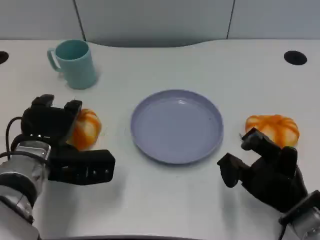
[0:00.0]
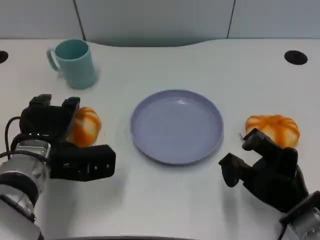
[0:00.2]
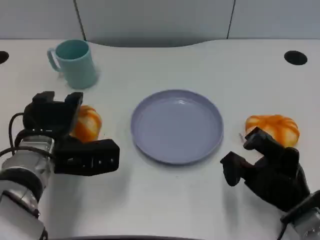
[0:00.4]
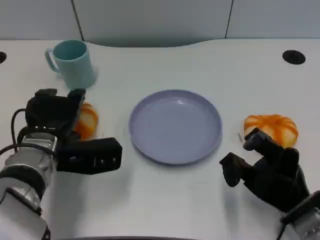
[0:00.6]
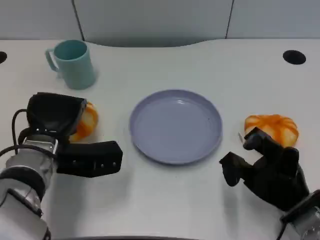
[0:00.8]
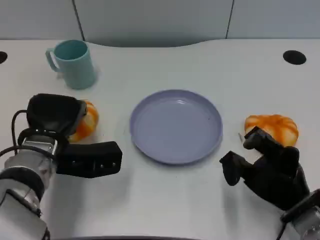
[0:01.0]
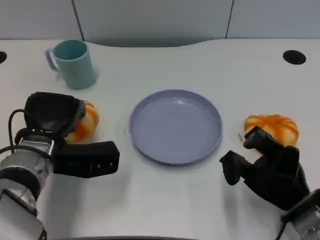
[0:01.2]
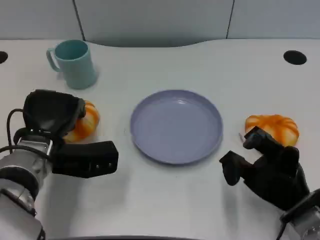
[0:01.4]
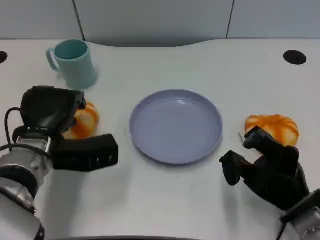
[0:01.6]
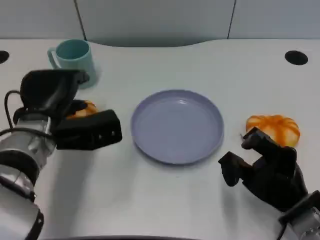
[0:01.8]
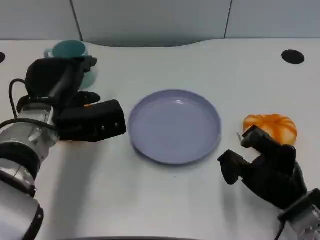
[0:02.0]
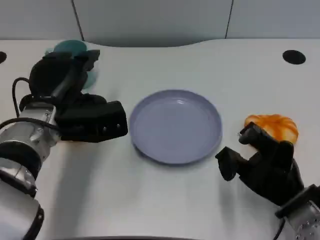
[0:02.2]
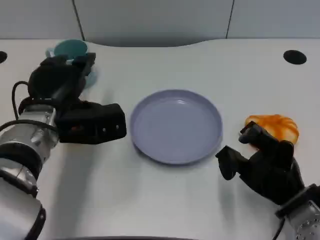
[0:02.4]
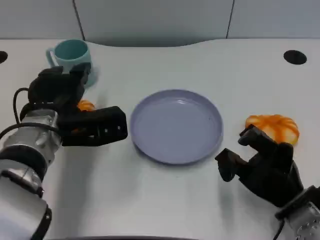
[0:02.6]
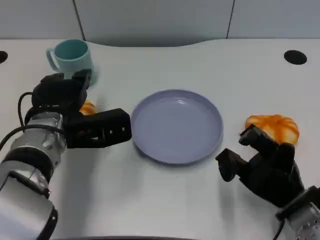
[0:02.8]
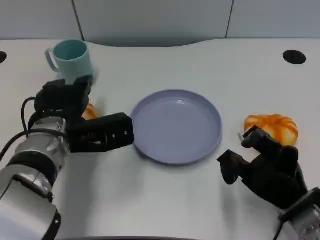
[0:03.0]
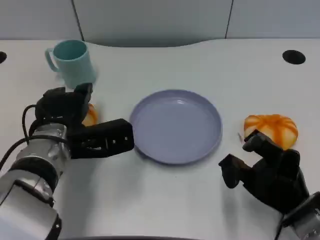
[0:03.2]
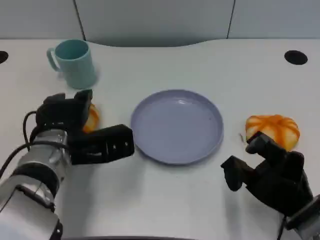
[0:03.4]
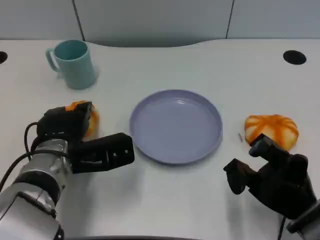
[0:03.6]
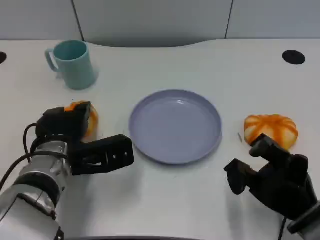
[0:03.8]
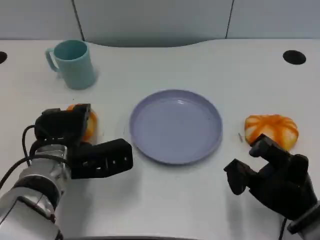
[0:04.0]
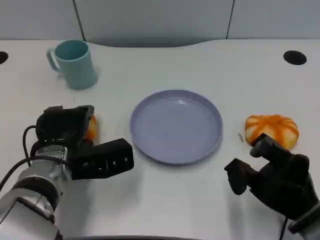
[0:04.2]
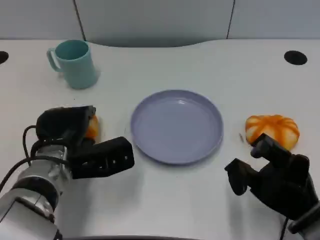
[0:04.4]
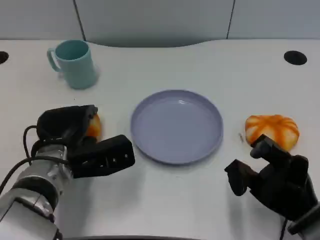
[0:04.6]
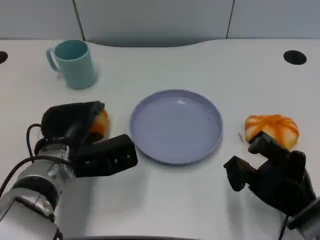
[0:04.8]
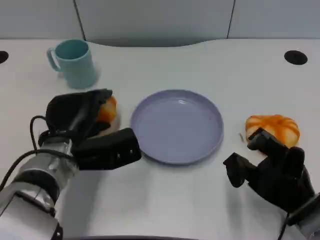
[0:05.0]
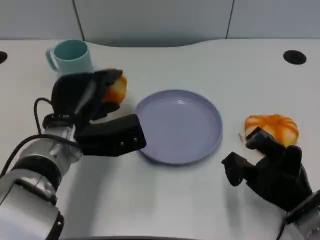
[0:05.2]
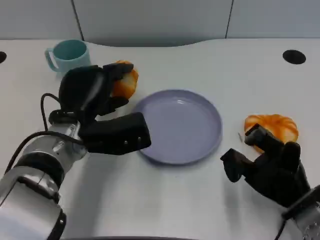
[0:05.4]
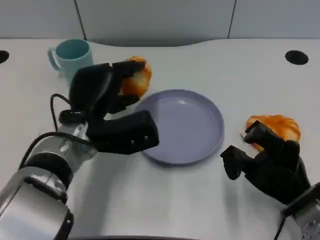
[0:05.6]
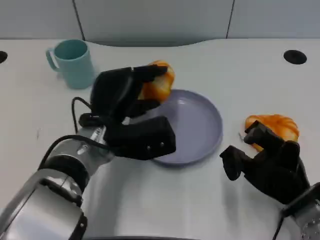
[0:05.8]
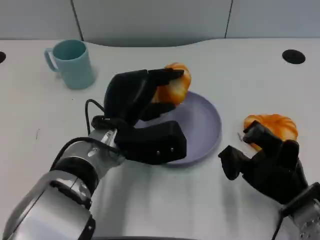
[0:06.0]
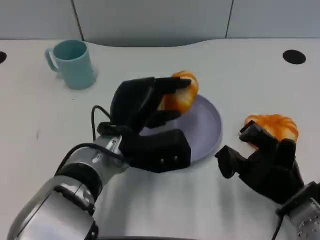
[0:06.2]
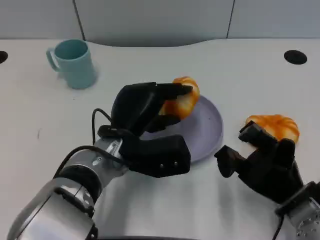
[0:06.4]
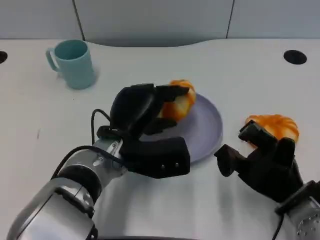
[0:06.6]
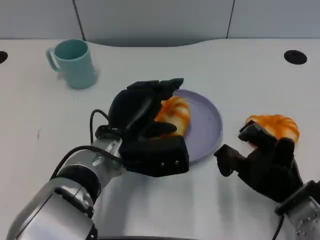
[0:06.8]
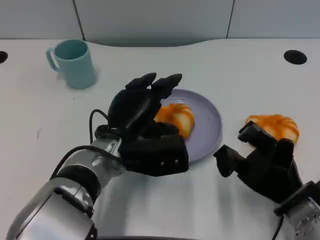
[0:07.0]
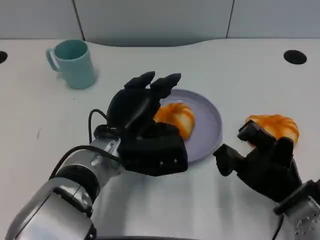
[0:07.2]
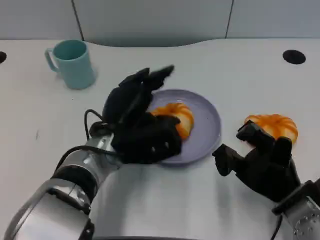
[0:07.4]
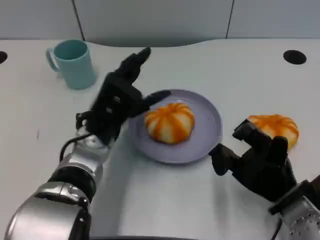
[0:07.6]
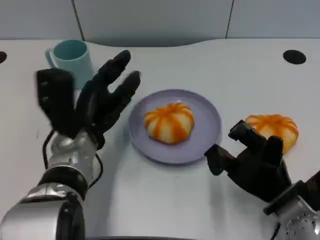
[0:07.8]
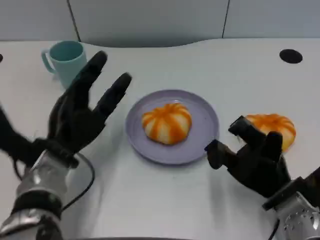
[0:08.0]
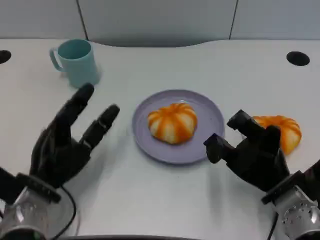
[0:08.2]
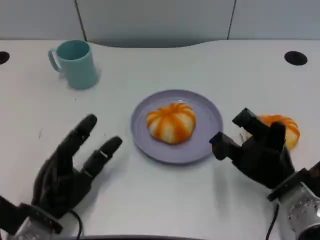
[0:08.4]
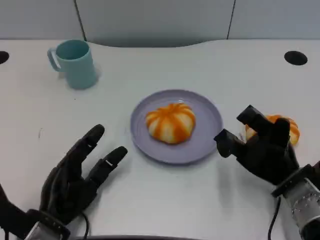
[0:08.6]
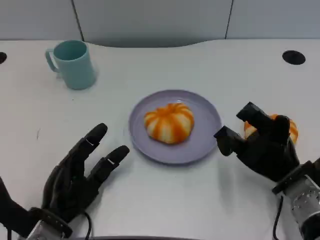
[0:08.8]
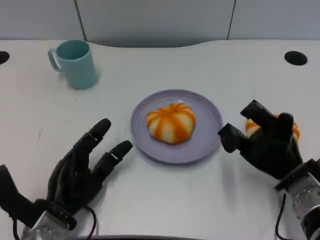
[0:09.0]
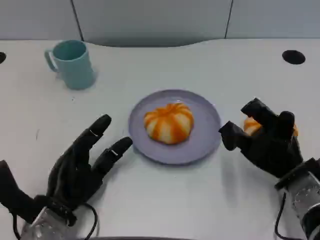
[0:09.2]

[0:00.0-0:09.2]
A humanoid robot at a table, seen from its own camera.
Task of the whole recording: Grasp the bread from the table and place it into the plate.
0:00.0 to 0:01.6: There are only small adjustments of the hands.
0:01.6 to 0:03.0: There are only small adjustments of the hands.
0:04.6 to 0:06.2: The left hand shifts about 10 cm to the right.
0:07.6 to 0:09.2: The left hand heads downward, backward and to the left, covering approximately 15 cm.

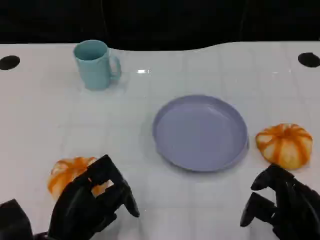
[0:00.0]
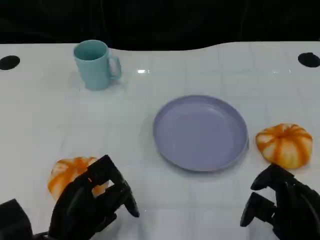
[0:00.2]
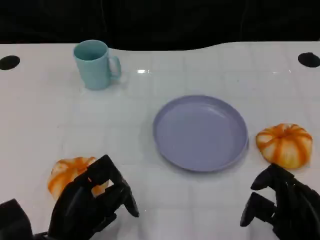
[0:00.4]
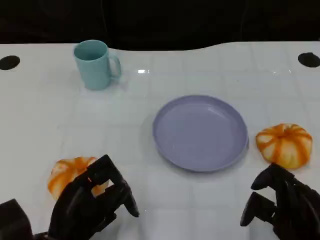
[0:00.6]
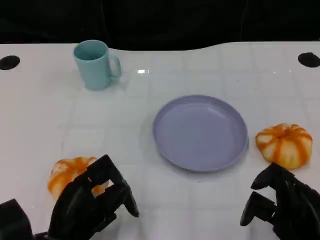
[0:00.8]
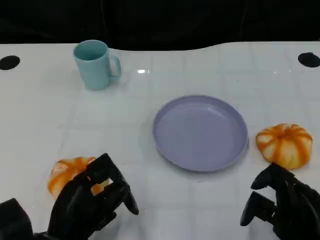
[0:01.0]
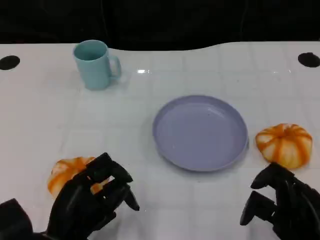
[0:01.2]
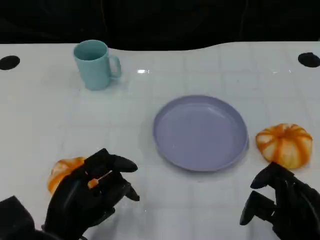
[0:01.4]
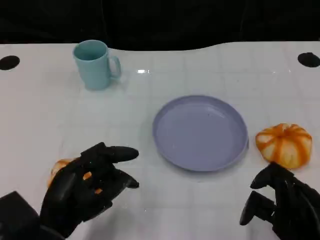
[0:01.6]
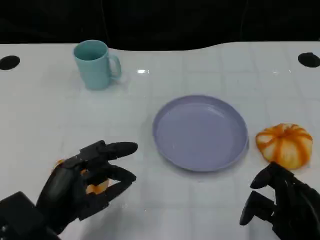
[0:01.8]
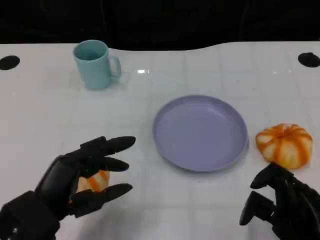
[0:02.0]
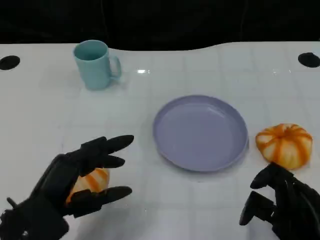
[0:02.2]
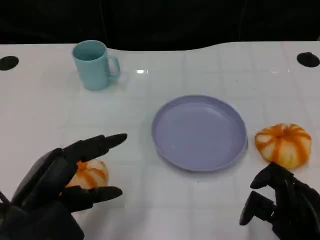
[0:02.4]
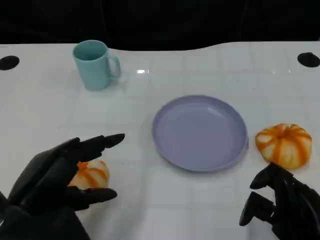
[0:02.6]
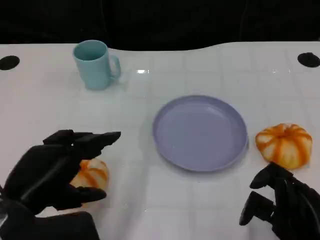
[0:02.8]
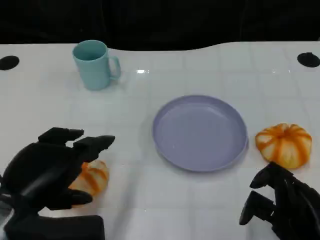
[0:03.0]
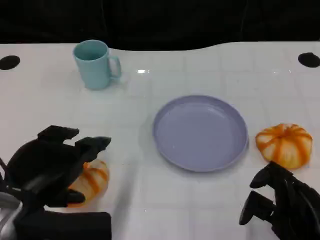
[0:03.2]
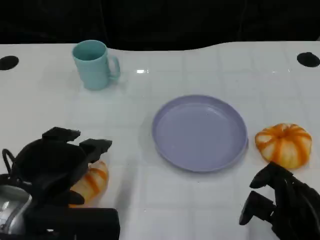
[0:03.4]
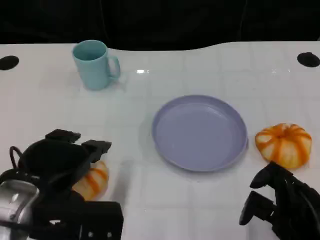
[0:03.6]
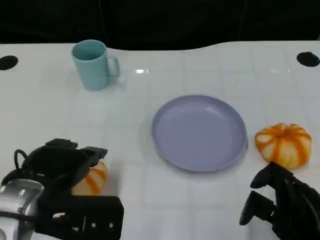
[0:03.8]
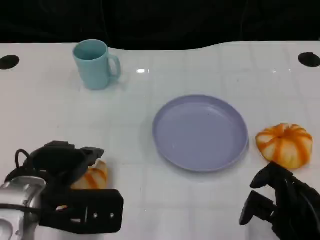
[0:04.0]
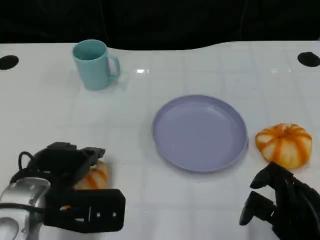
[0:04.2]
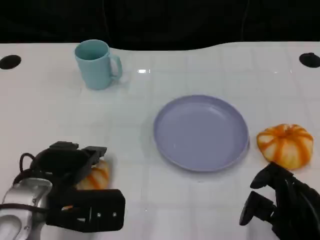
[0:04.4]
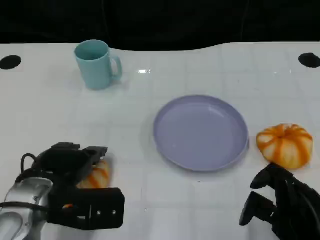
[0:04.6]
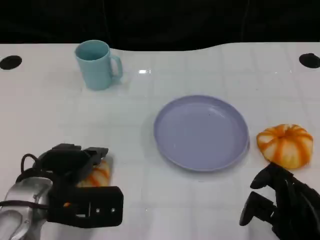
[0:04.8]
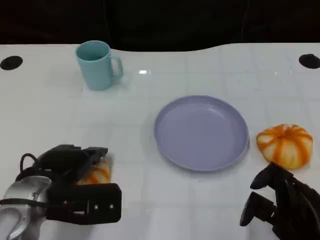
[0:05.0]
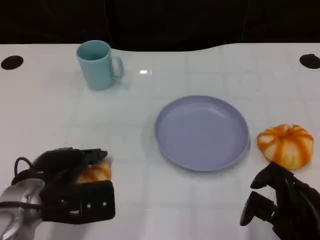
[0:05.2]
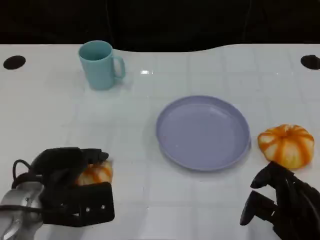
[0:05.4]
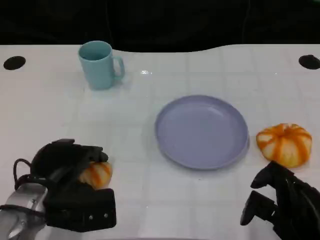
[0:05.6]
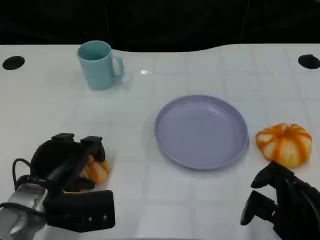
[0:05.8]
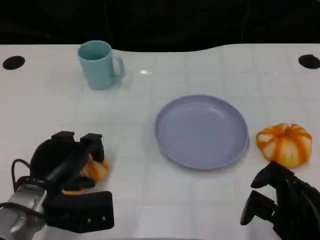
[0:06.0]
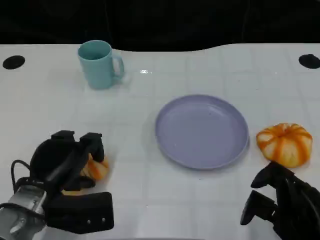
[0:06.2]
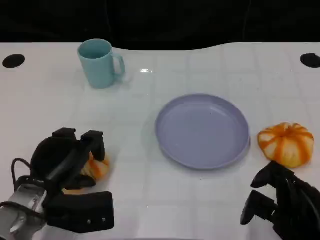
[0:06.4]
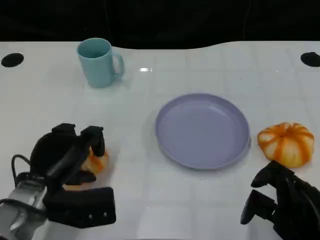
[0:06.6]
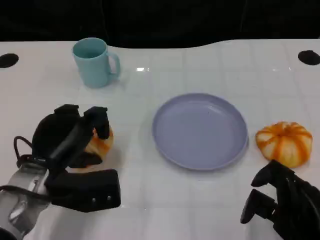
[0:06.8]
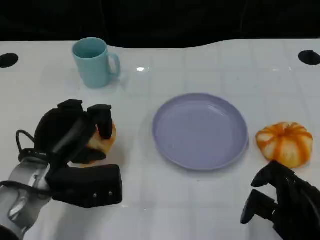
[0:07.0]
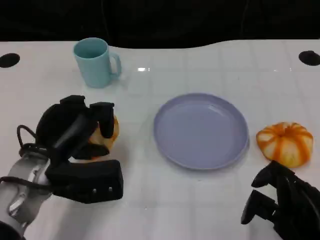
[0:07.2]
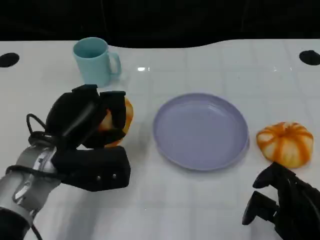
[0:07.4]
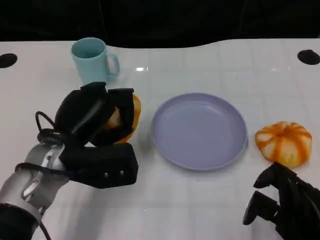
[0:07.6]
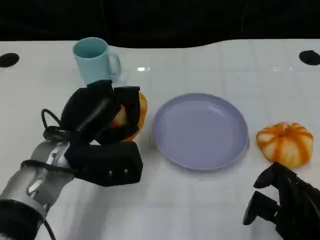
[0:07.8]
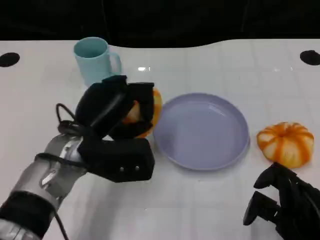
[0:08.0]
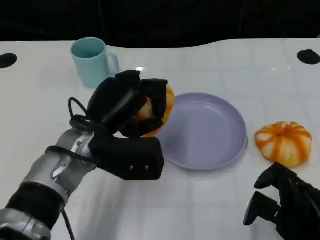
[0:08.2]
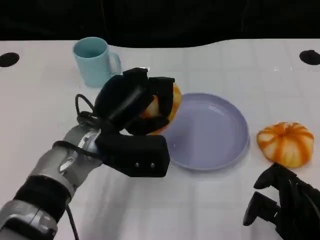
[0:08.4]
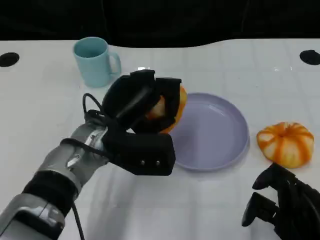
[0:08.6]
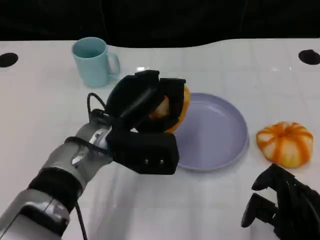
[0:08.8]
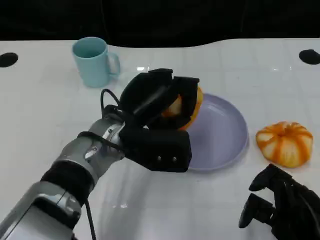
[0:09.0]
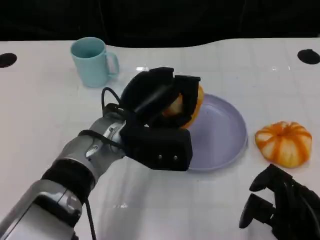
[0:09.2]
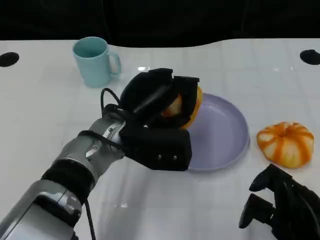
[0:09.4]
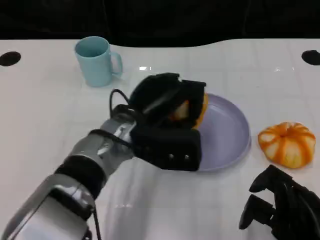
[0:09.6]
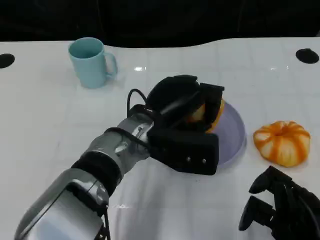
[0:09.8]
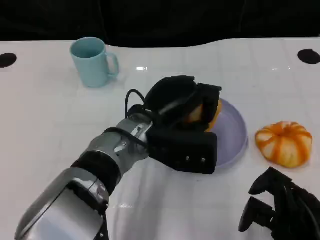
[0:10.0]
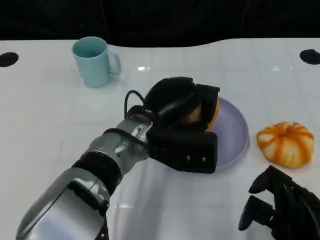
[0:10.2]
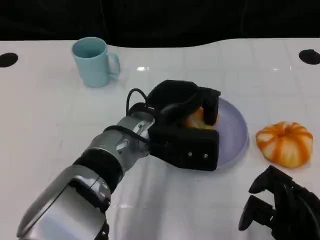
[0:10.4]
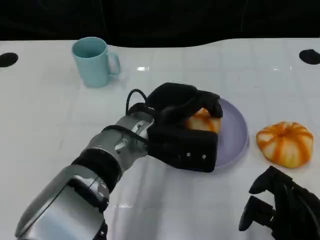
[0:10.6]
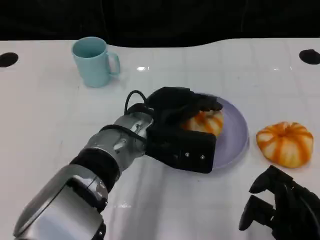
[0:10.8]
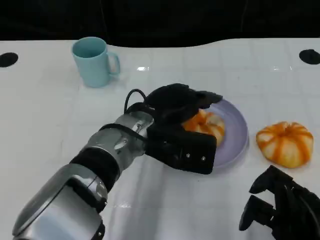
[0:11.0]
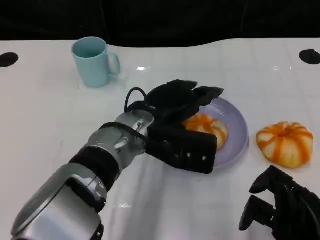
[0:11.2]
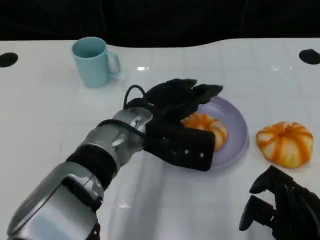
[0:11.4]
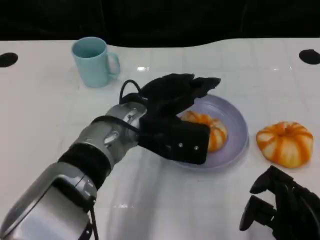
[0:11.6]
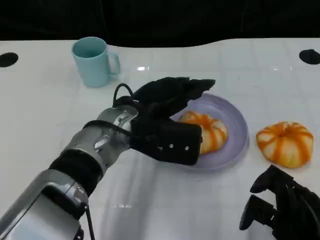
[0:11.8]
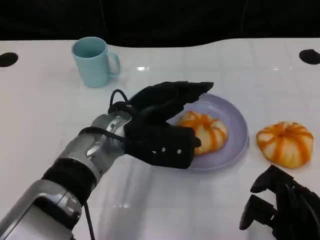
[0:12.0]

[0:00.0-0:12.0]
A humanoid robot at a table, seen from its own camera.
Task of the whole recording: Grasp the bread from the table and place it into the plate.
0:00.0 to 0:01.6: There are only small adjustments of the hands.
0:01.6 to 0:03.0: The left hand shifts approximately 10 cm upward.
0:03.0 to 0:04.4: The left hand moves forward and downward, about 10 cm.
0:04.4 to 0:06.0: The left hand goes about 5 cm downward.
0:06.0 to 0:07.6: The left hand travels upward by some 5 cm.
0:07.6 to 0:09.0: The left hand goes approximately 10 cm to the right.

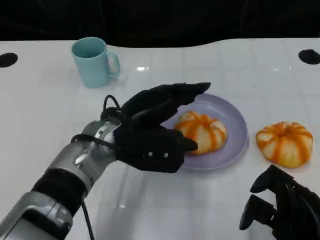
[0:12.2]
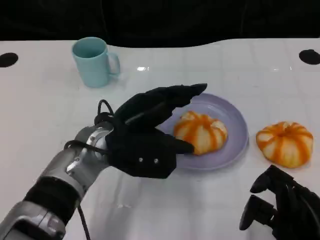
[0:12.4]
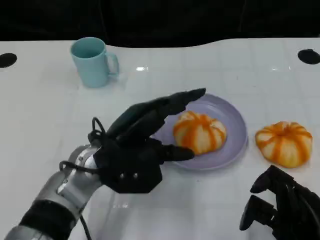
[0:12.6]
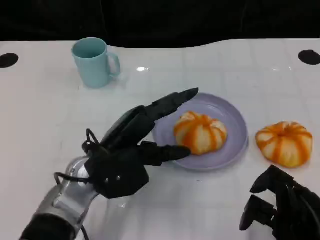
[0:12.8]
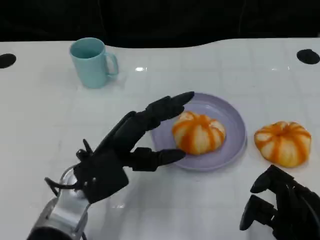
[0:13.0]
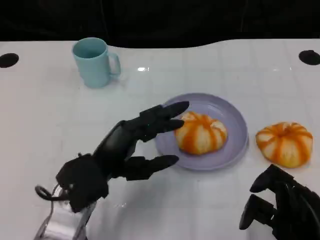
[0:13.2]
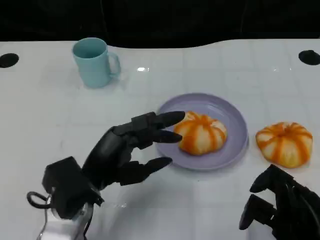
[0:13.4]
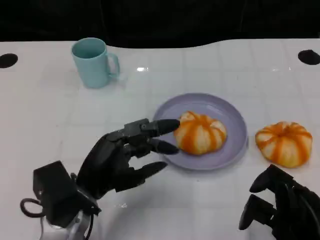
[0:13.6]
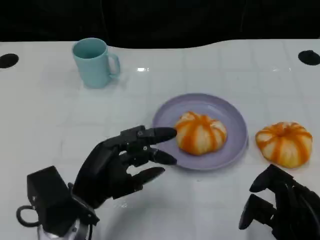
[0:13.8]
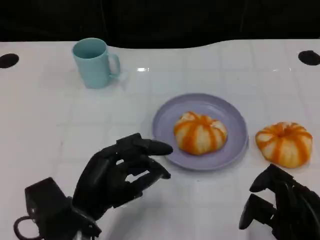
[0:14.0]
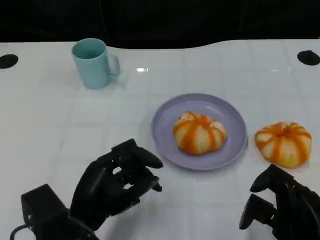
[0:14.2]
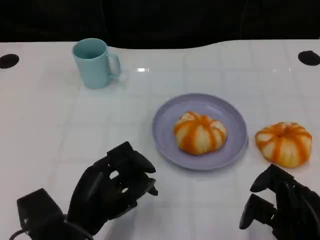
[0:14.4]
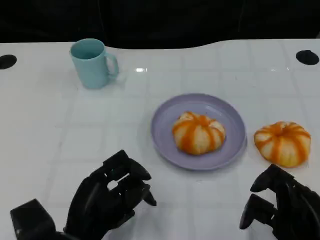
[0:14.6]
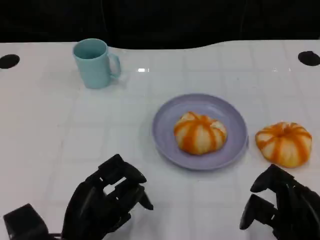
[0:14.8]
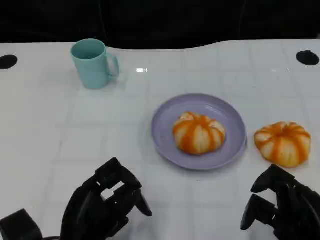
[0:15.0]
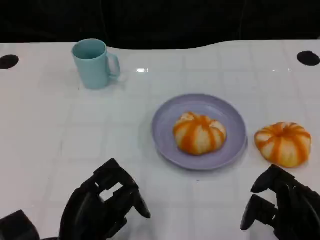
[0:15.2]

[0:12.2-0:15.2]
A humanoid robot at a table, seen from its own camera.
Task of the whole recording: Grasp the bread from the table and place it into the plate.
0:12.2 to 0:13.8: The left hand travels backward, to the left and downward by some 10 cm.
0:13.8 to 0:15.2: The left hand travels backward by some 5 cm.
